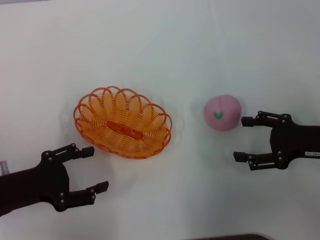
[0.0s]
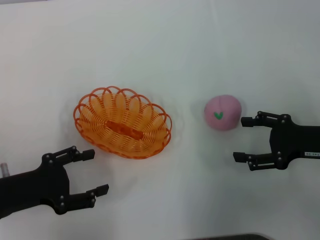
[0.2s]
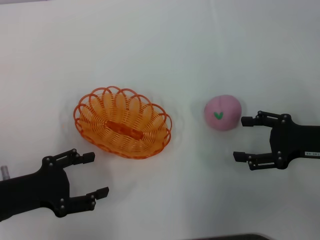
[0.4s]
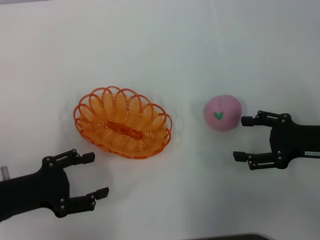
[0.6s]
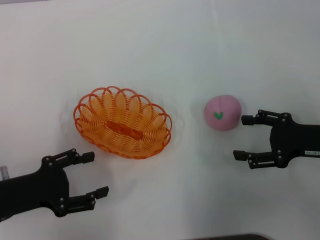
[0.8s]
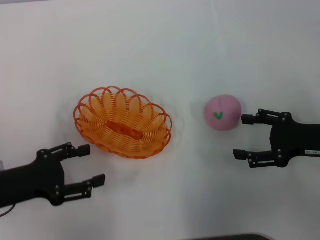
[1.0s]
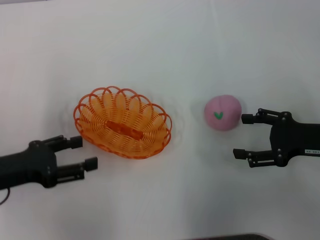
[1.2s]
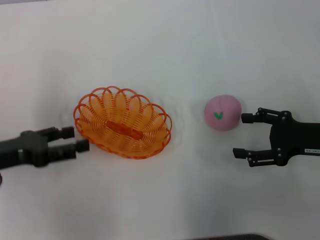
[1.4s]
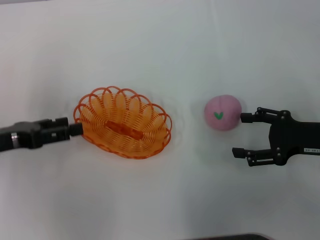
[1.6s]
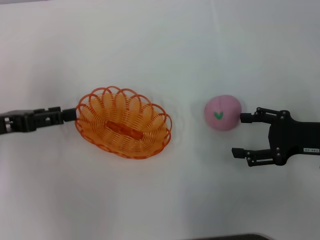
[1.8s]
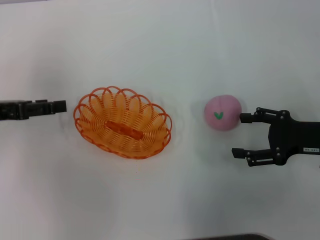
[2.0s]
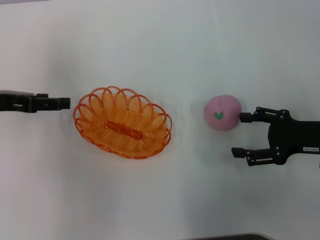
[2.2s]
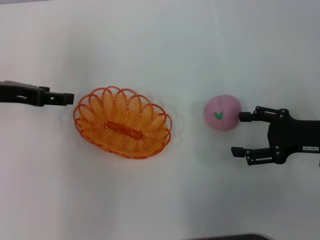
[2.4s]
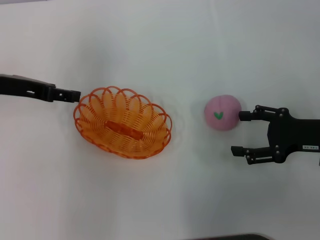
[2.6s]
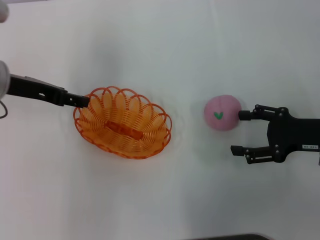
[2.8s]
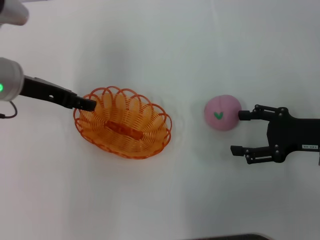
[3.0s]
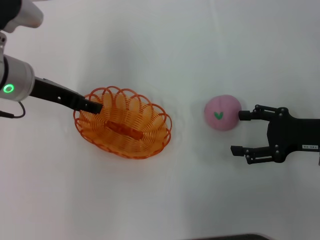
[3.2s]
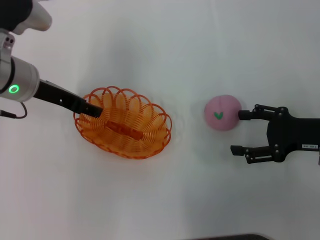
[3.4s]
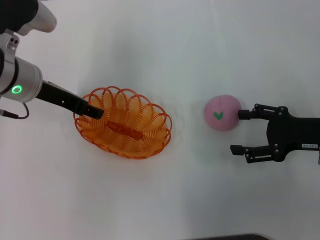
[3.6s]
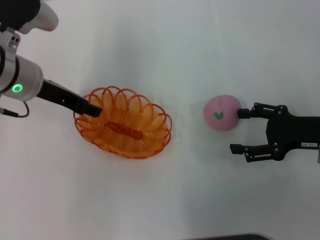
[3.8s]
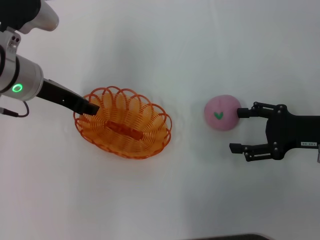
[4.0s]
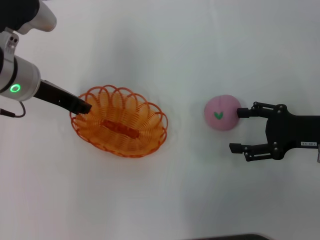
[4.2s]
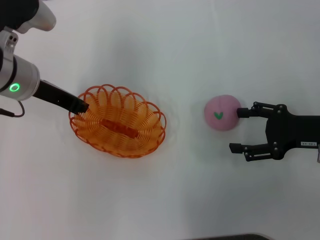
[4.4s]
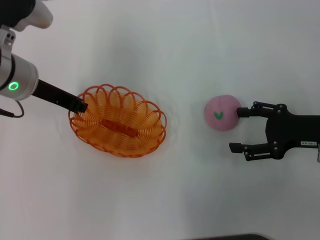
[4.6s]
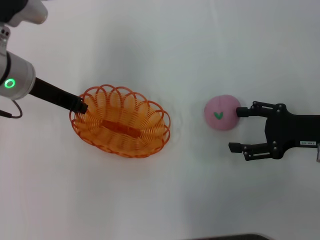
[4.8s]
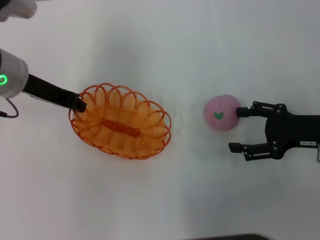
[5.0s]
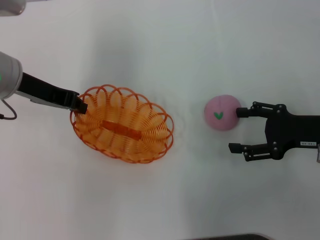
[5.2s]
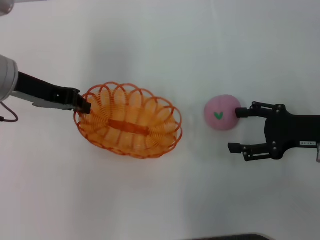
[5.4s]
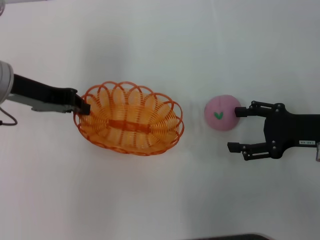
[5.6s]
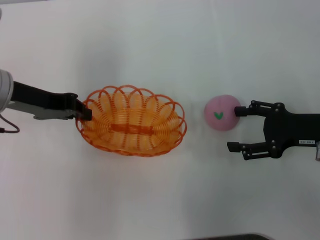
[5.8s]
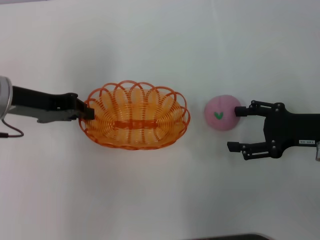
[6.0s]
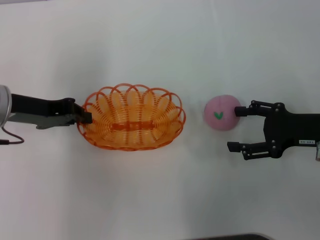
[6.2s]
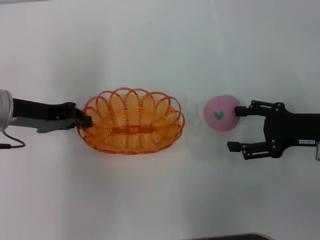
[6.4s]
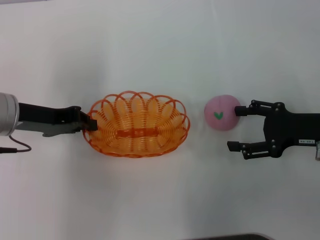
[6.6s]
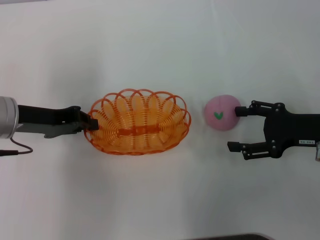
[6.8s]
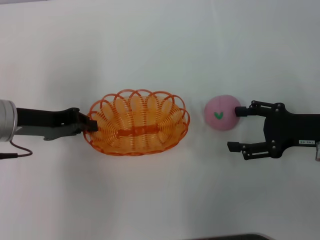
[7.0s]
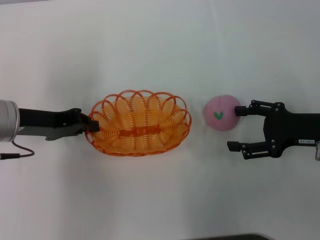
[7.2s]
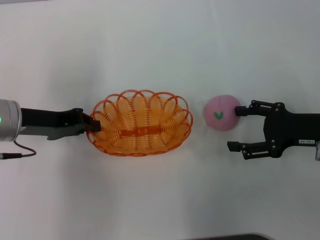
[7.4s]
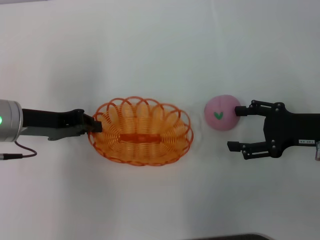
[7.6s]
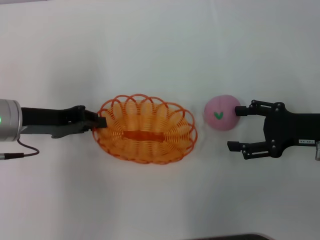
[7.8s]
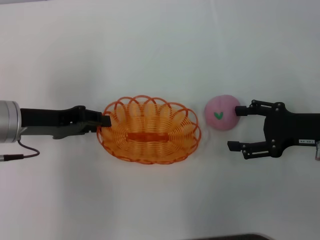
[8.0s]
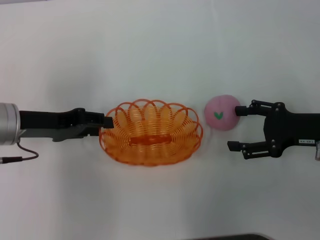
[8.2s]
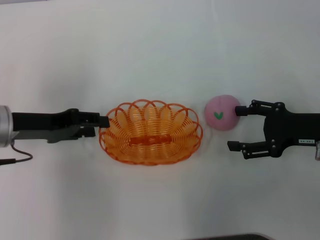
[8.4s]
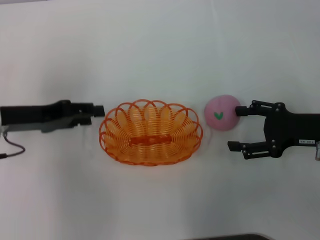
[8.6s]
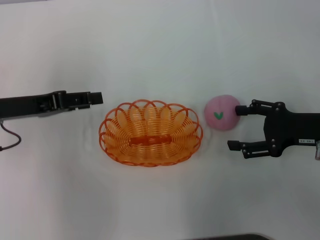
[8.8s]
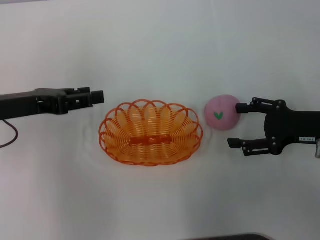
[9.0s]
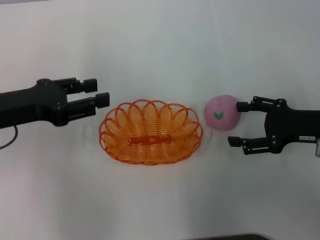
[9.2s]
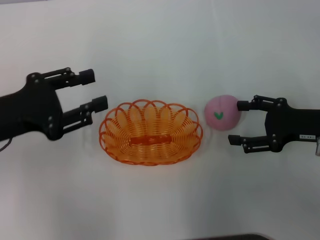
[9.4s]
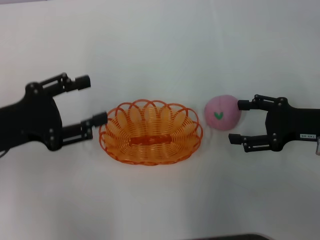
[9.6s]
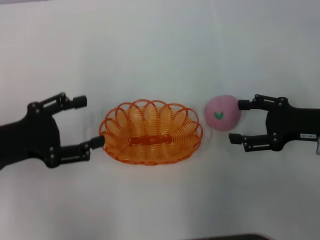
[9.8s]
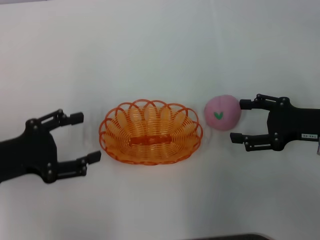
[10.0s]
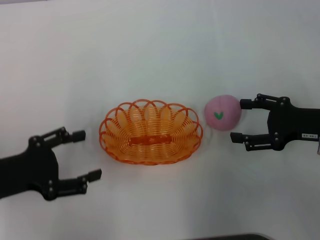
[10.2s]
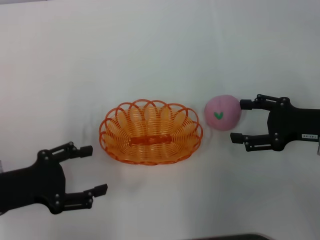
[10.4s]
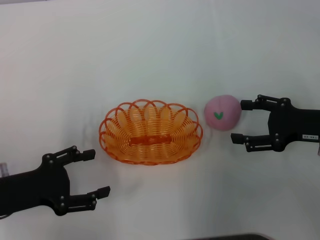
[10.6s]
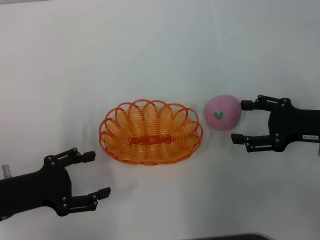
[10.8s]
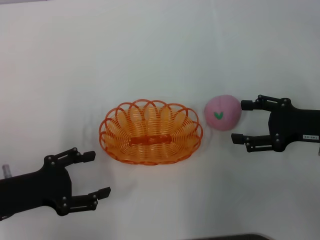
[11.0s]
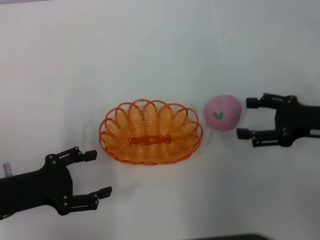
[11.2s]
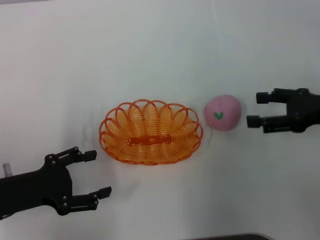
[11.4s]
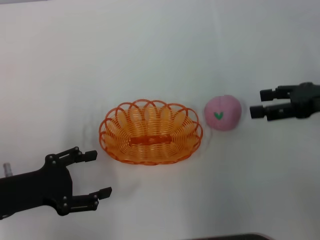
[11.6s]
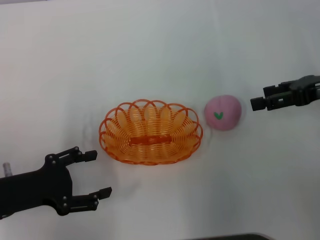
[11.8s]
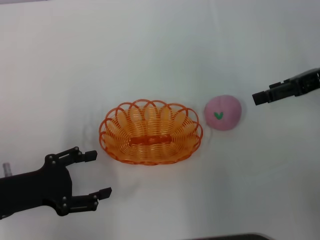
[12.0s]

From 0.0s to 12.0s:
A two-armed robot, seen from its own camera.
Step, from 0.0s to 4.6s: Pick up the basket with the left gripper.
Step, from 4.8s to 9.0s: Place the basket in the center of view with the left gripper.
From 0.0s to 1.6s: The left gripper travels forward by some 5 cm.
From 1.6s to 3.0s: The left gripper goes about 10 cm forward and to the right.
From 3.0s to 4.4s: The left gripper closes up.
From 4.4s to 6.0s: The left gripper changes place by roughly 5 cm.
From 6.0s to 7.6s: The grippers make only small movements.
From 7.6s to 9.0s: The left gripper opens.
From 9.0s to 10.4s: The left gripper is displaced backward and downward by approximately 10 cm, and opens its fingers.
From 10.4s to 12.0s: The right gripper travels upward and forward by approximately 10 cm.

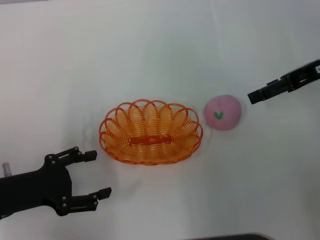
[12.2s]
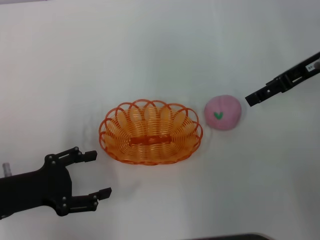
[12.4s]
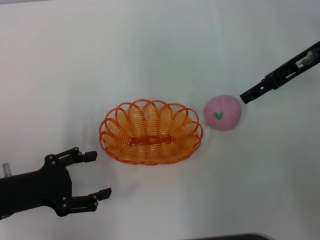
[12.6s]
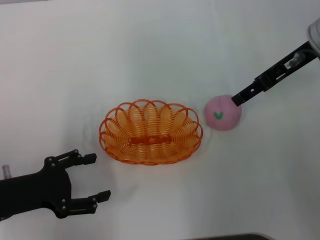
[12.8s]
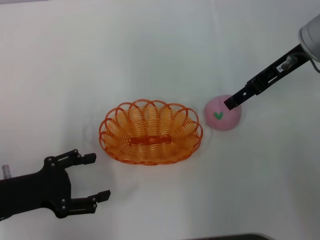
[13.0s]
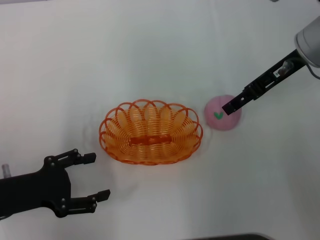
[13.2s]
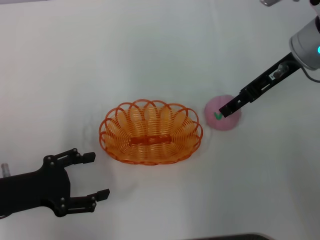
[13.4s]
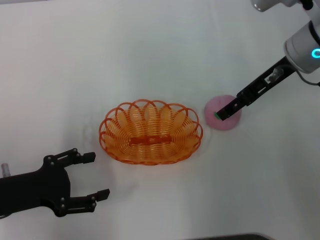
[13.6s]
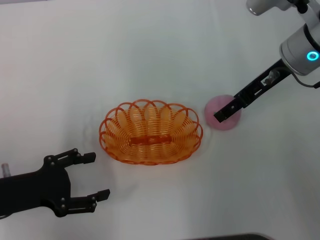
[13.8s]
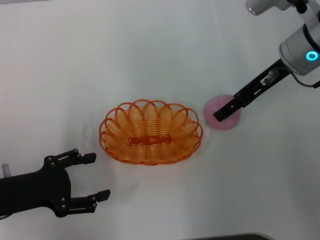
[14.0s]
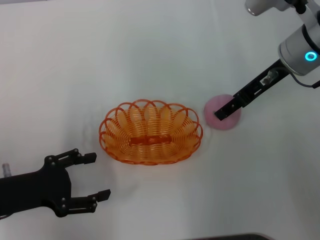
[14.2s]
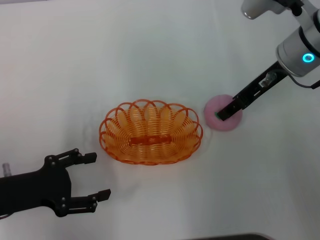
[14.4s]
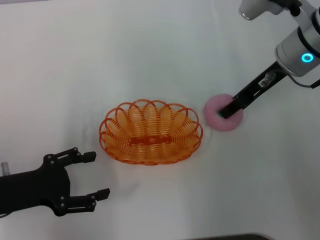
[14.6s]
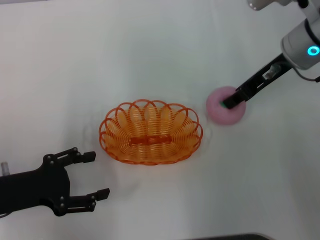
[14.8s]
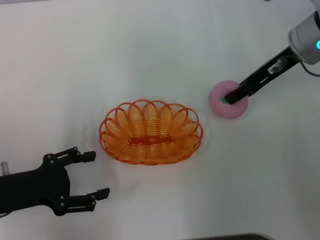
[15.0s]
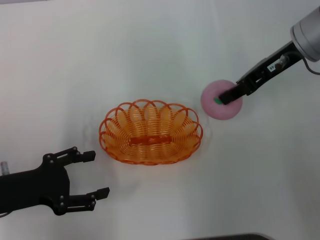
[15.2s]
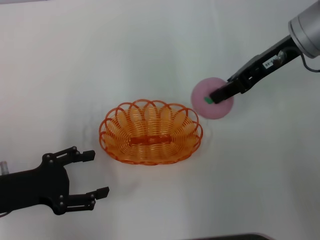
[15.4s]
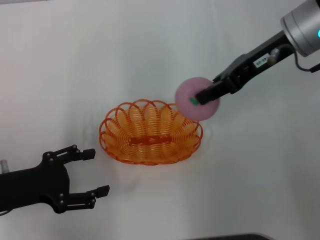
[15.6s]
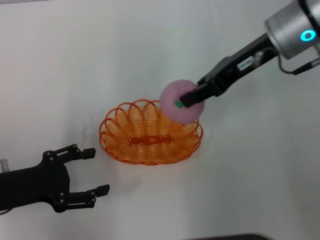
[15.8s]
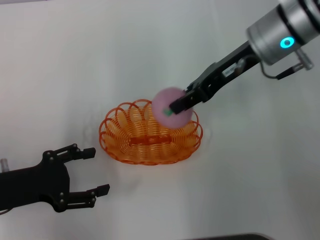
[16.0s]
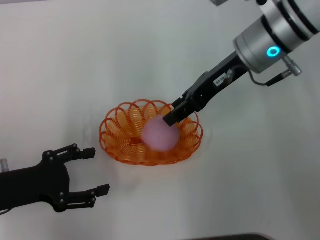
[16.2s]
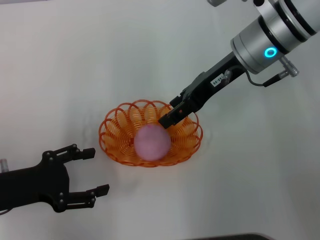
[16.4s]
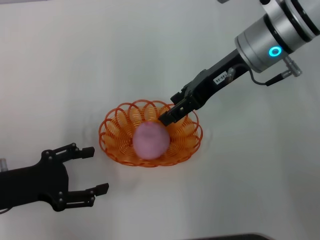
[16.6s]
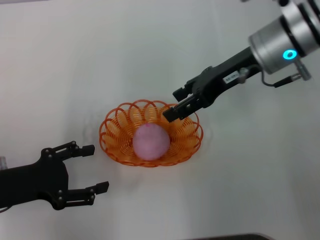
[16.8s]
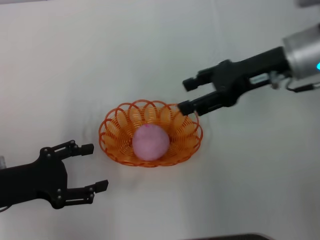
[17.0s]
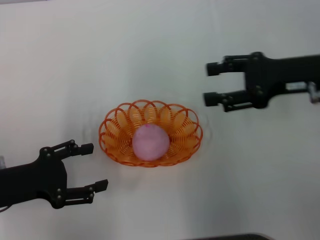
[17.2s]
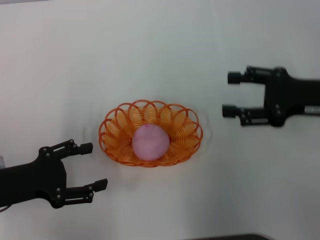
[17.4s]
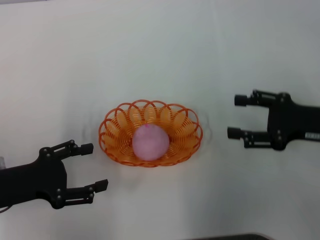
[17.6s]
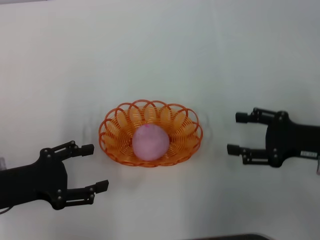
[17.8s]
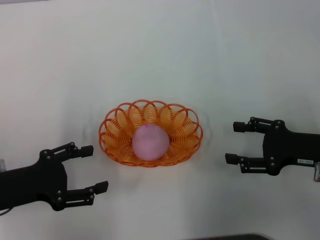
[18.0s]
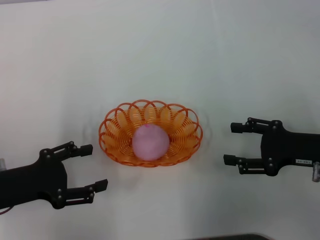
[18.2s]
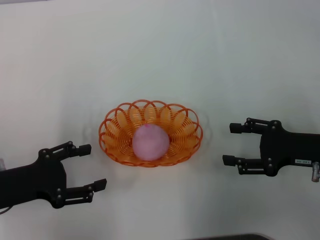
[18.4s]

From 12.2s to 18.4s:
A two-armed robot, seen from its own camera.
Step, from 12.2s to 15.0s: Pick up the peach with the right gripper.
Step, from 15.2s to 16.8s: Place the peach into the basket with the right gripper.
From 12.2s to 13.8s: The right gripper heads to the left, covering some 10 cm.
From 13.8s to 15.4s: The right gripper closes up.
From 15.4s to 16.8s: The right gripper opens.
From 16.8s to 18.4s: The right gripper shifts about 20 cm backward, to the right and downward.
